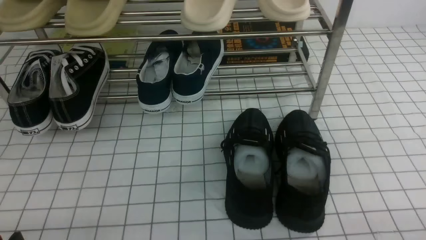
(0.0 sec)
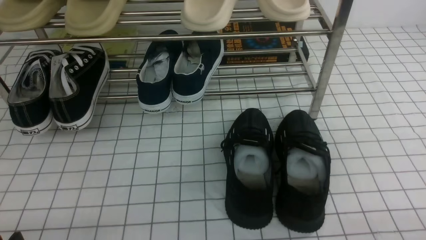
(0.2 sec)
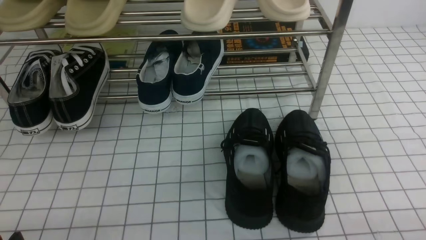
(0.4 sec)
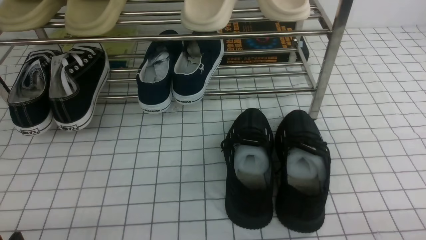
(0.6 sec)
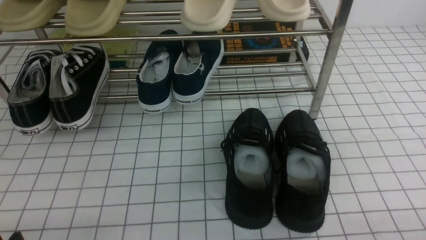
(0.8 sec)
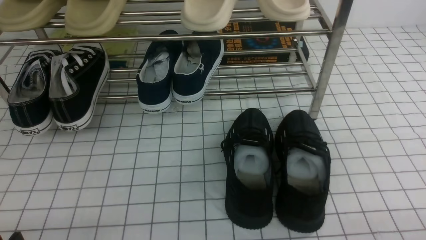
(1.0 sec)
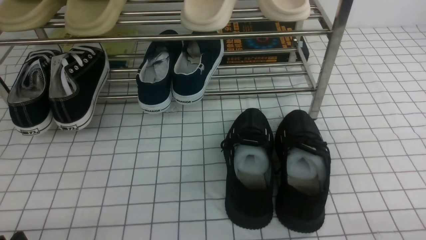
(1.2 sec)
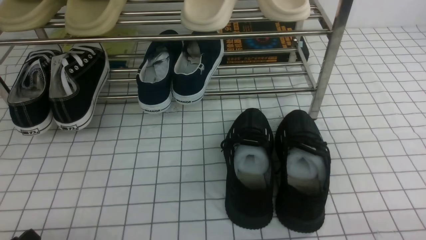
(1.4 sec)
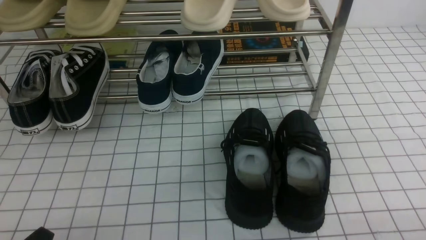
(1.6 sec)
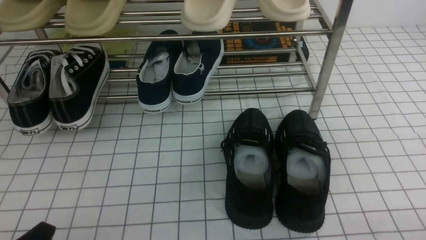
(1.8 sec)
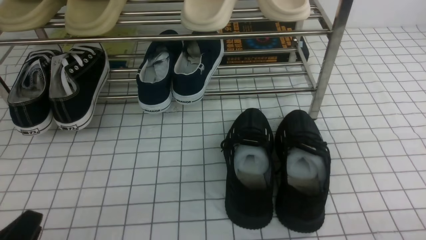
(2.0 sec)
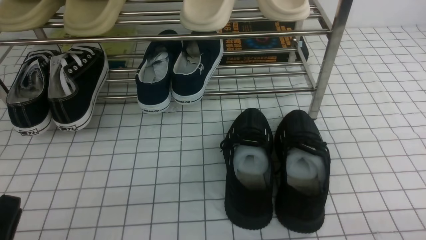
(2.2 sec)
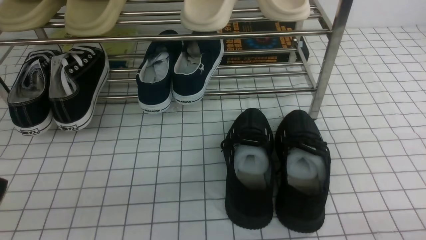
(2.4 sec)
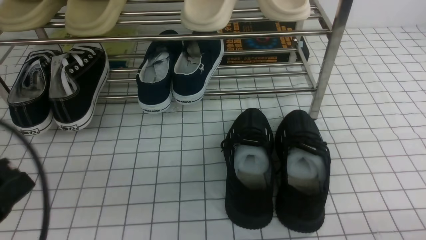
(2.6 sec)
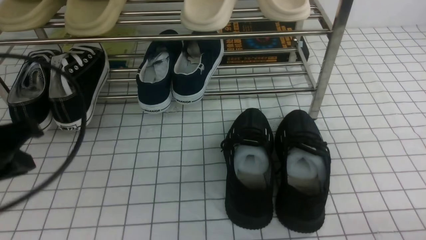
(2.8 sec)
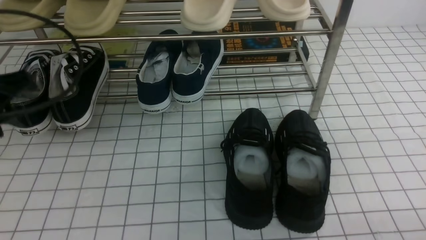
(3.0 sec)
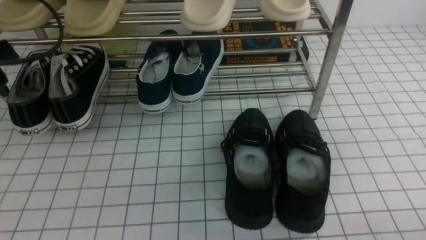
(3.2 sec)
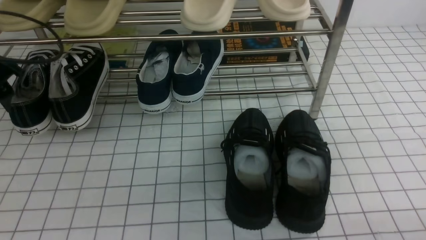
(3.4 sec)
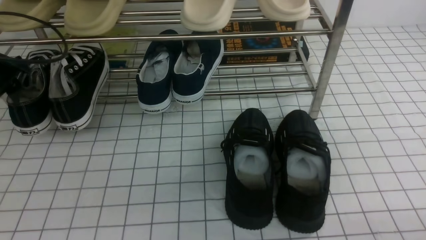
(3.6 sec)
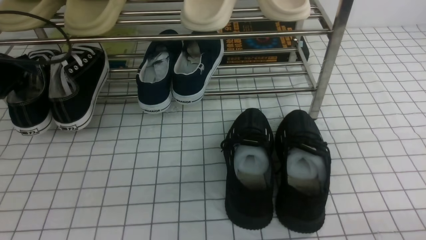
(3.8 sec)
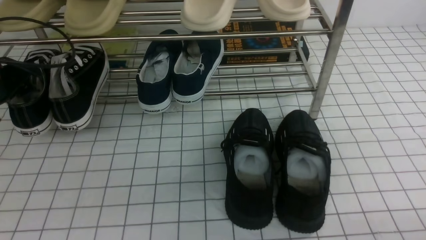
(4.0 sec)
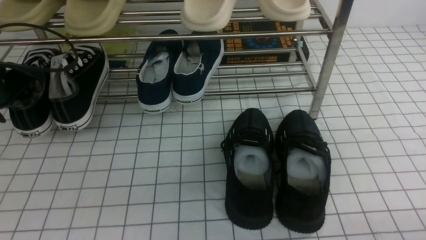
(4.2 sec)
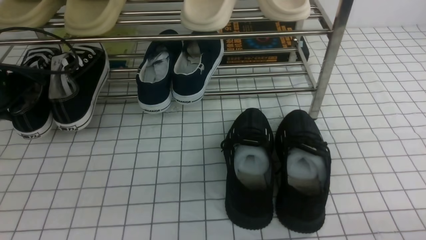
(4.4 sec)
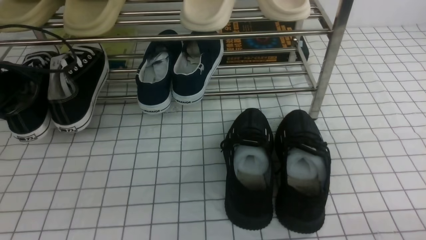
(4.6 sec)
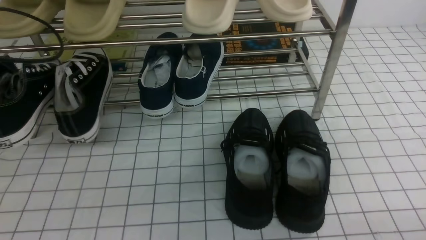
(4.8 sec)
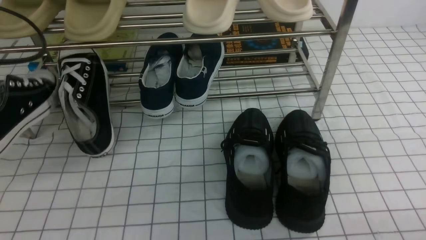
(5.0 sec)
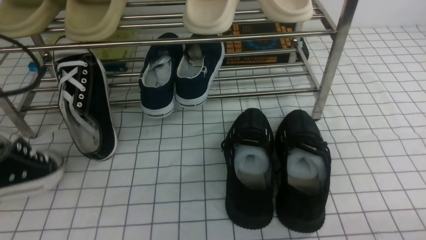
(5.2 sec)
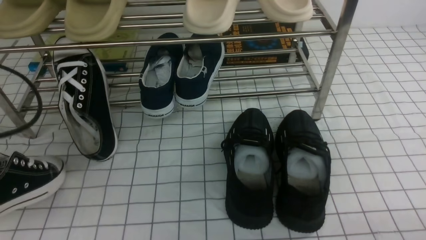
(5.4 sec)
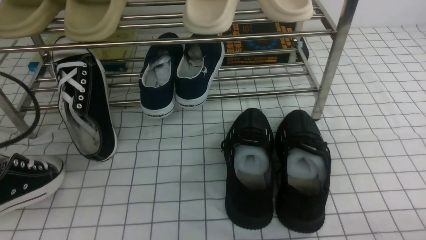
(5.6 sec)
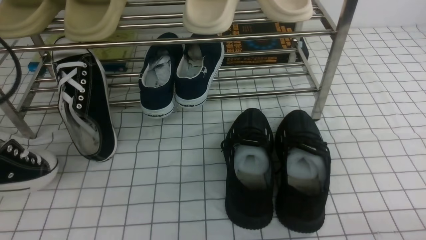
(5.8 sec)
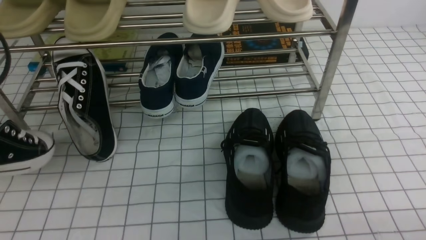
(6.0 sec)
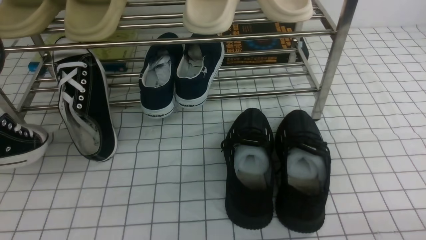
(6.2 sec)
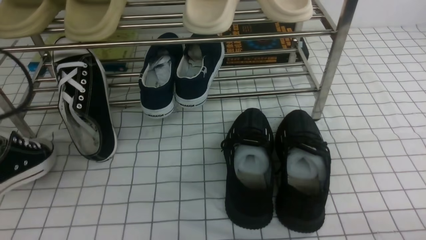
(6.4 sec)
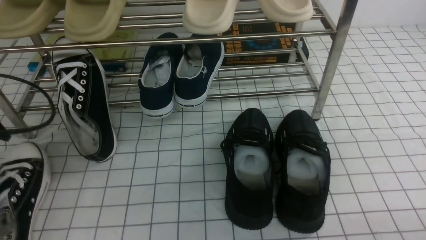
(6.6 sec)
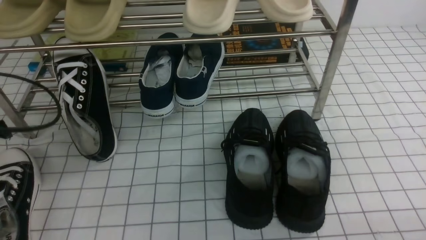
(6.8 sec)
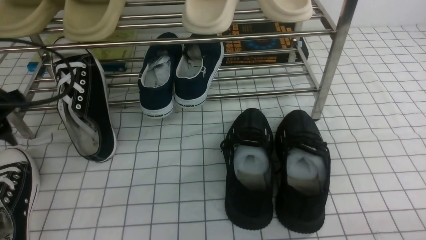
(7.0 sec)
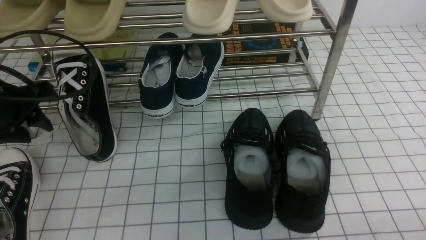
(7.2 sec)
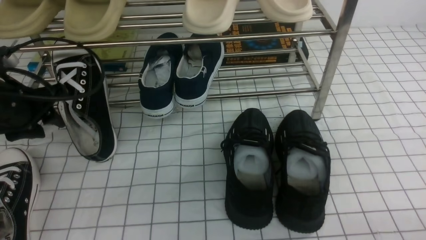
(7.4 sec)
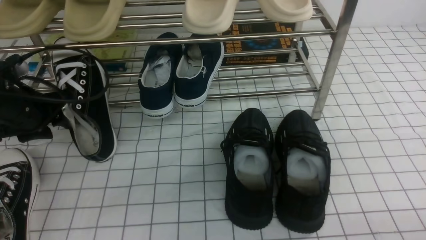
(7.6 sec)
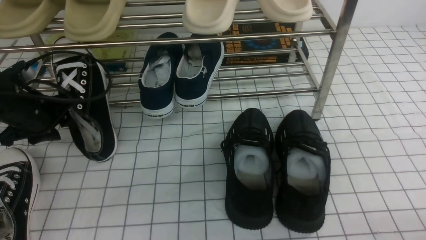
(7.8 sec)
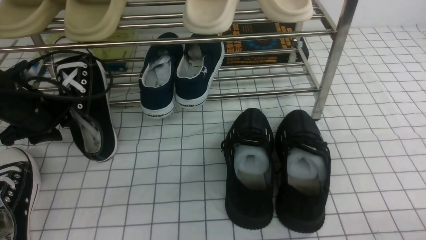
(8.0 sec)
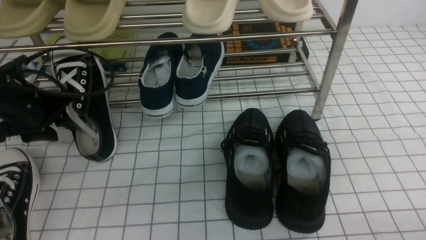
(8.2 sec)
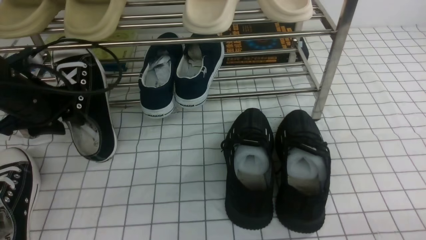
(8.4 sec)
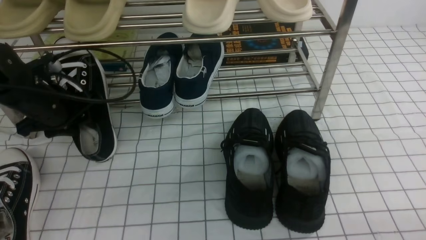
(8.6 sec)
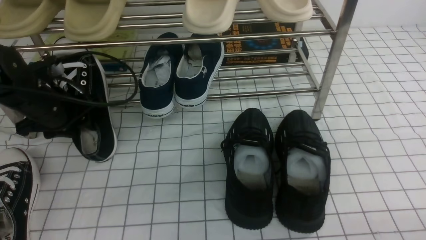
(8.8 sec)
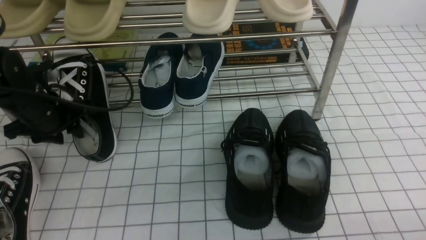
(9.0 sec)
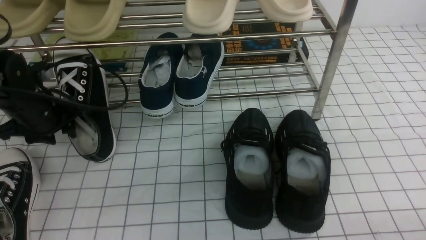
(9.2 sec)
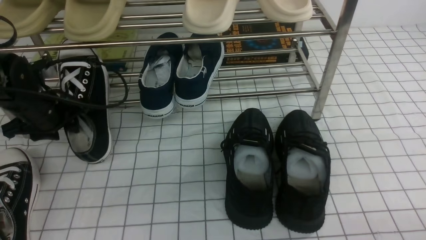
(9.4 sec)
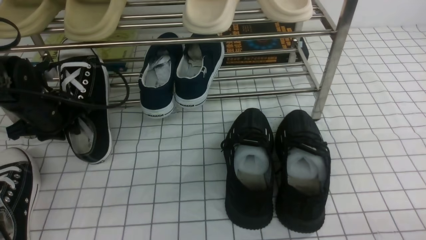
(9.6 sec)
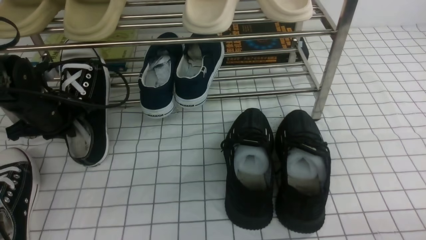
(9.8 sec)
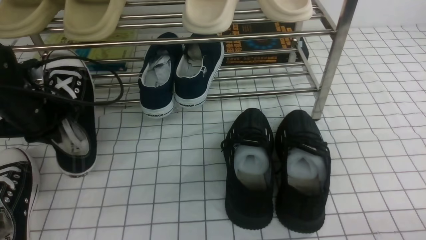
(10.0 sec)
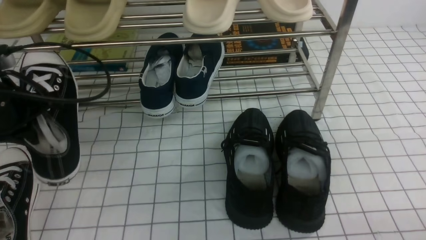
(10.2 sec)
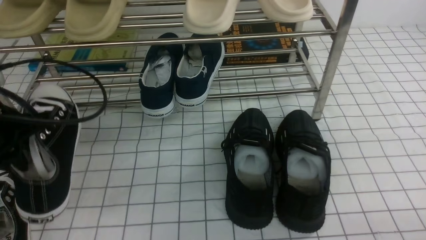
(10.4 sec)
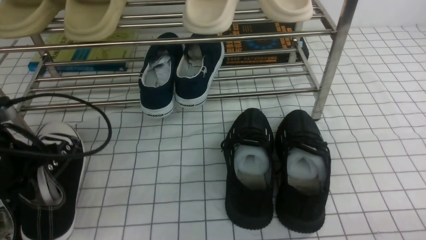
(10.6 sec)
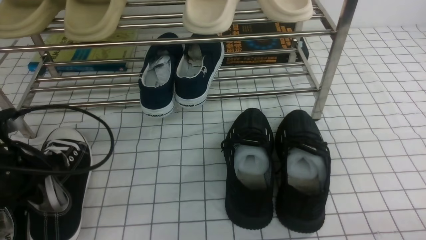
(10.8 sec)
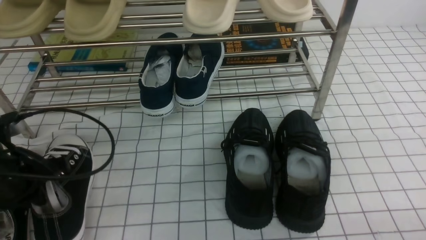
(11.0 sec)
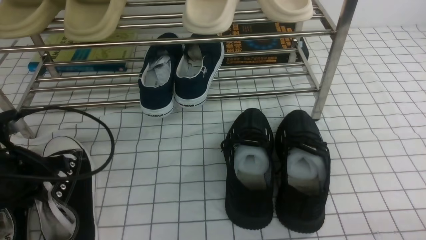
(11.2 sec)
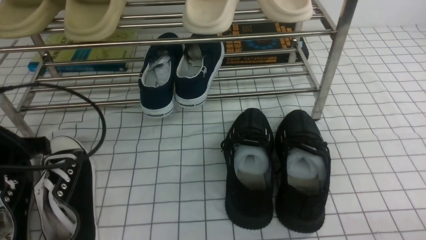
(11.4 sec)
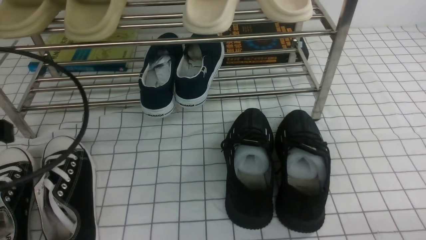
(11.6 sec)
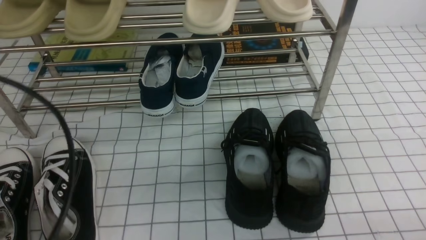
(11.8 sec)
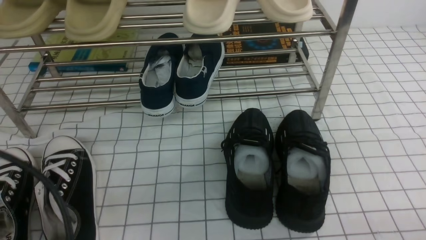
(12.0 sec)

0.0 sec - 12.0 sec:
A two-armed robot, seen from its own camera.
Step, 0.0 sec - 4.4 sec: use the left arm to clamp a shoe on the left side of the shoe rack.
Step, 4.6 sec - 6.8 sec: Use your left arm to remove the clamped shoe from the shoe rack and put it down.
Step, 7.0 sec - 9.6 sec: use the left arm to clamp a shoe on the left side of the shoe rack.
Step, 9.8 sec - 11.4 sec: Use your left arm to remove the clamped shoe from the shoe rack and put it down.
1.6 sec - 3.0 sec: The left gripper shifts some 25 cm forward and upward, and closes, then opens again.
3.0 sec - 4.4 sec: The left gripper travels forward, downward and to the left by roughly 15 cm, and opens and closes again.
4.4 sec - 6.0 sec: The left gripper moves backward and upward, about 20 cm.
6.0 sec - 7.6 sec: The left gripper heads forward and downward, covering some 20 cm, and opens its fingers.
7.6 sec - 9.0 sec: The grippers stay close to where they were, moving slightly.
9.0 sec - 10.4 sec: The left gripper moves backward and upward, roughly 10 cm, and closes its fingers.
10.4 sec - 12.0 sec: The left gripper heads backward, covering approximately 20 cm, and opens, then closes once more.

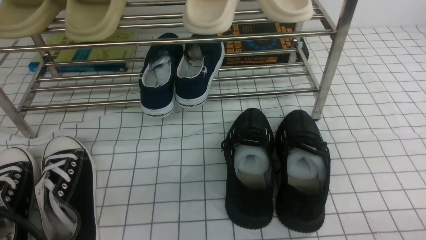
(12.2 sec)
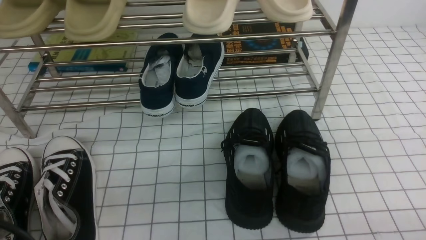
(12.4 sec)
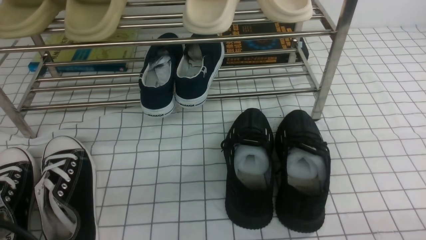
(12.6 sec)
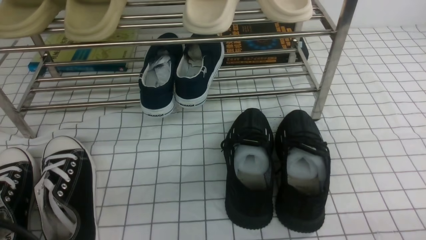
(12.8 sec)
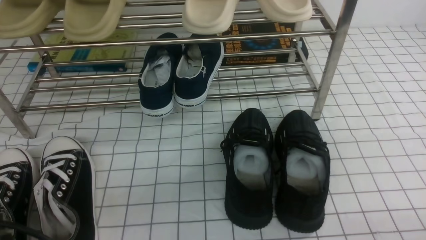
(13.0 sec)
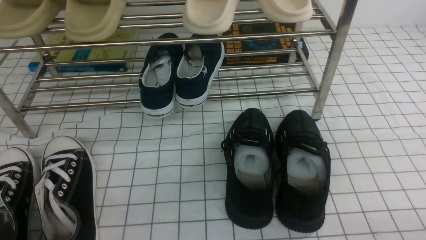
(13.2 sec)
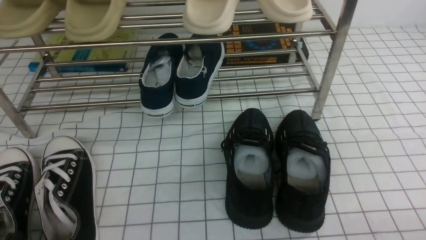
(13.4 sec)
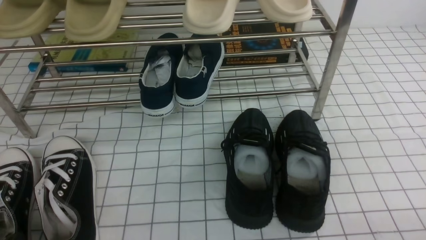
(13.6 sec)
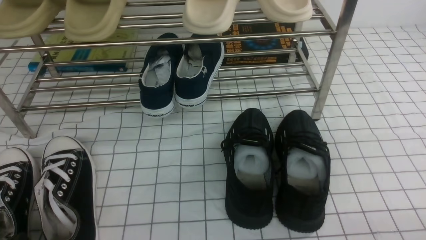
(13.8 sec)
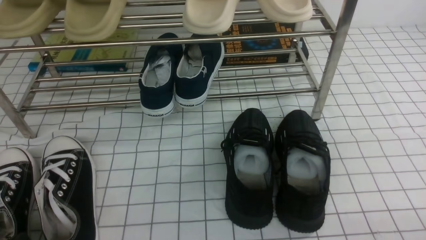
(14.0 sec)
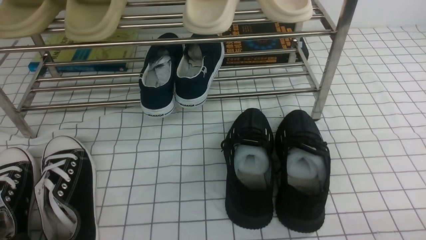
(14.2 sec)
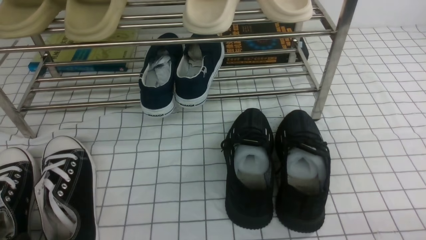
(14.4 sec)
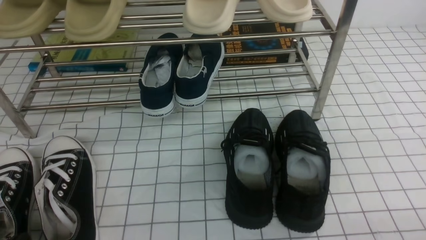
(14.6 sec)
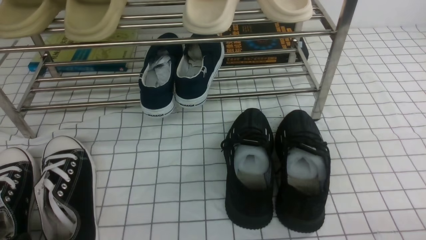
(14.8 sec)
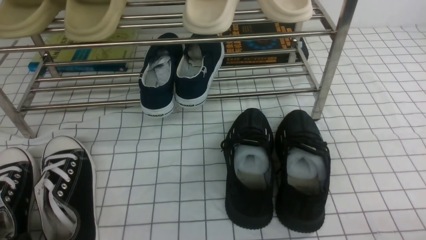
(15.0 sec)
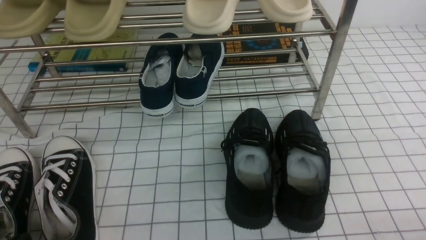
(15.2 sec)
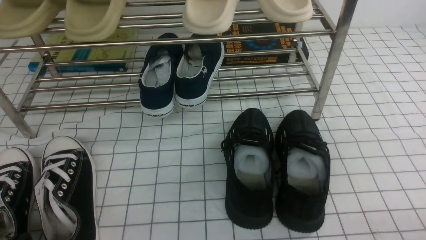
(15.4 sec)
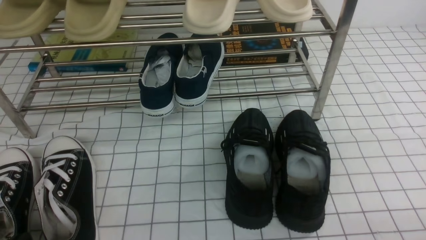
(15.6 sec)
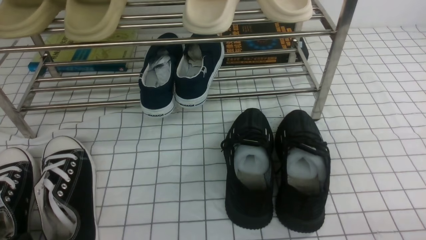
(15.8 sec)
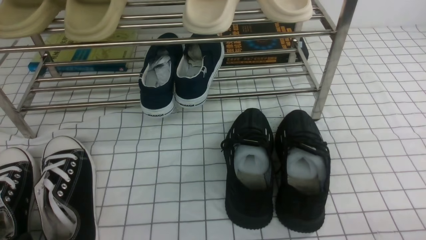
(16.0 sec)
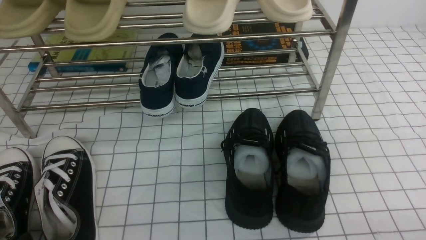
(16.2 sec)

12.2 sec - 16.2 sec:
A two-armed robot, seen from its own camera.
13.6 sec - 14.8 sec: Neither gripper changes place.
14.8 sec - 16.2 sec: The two grippers keep their place.
